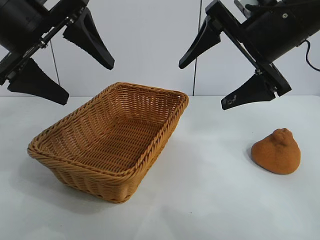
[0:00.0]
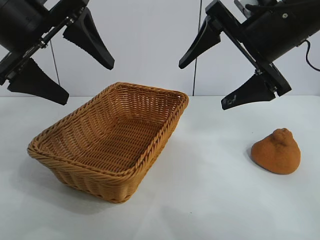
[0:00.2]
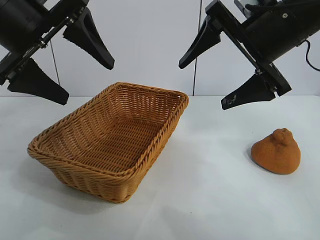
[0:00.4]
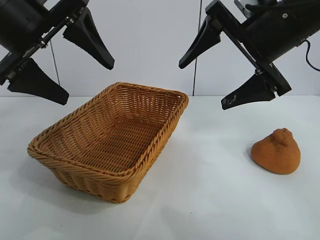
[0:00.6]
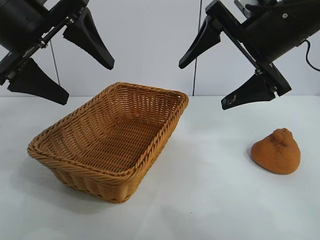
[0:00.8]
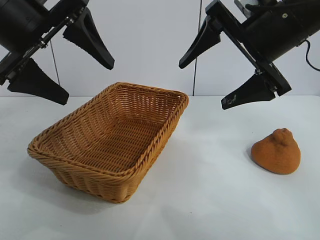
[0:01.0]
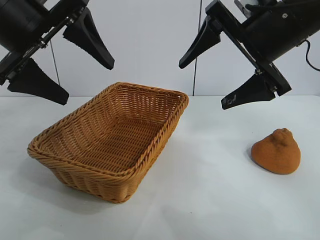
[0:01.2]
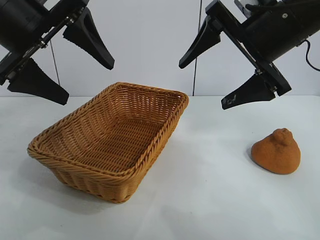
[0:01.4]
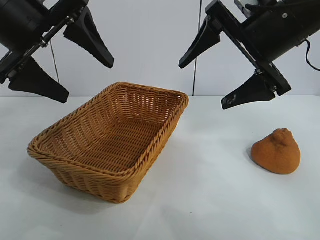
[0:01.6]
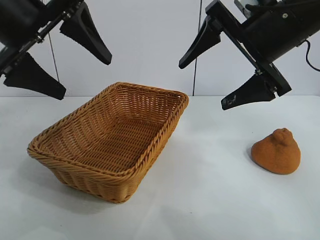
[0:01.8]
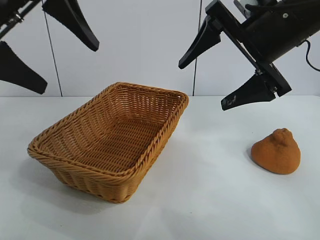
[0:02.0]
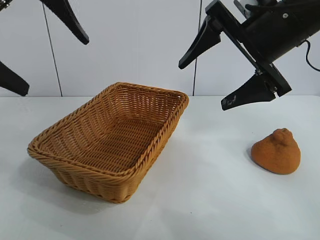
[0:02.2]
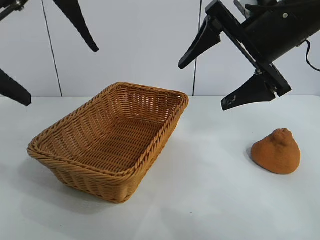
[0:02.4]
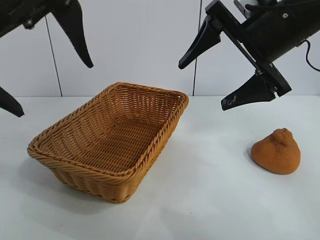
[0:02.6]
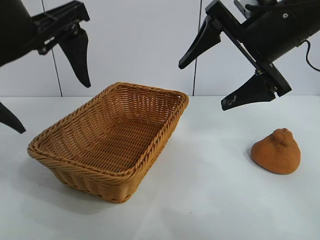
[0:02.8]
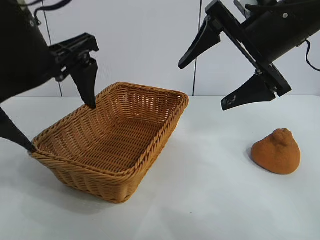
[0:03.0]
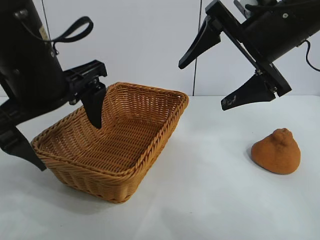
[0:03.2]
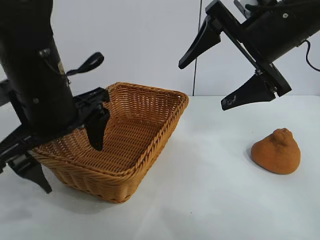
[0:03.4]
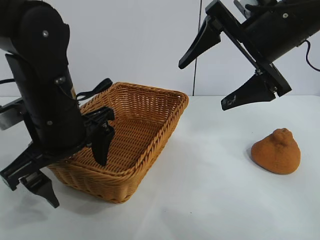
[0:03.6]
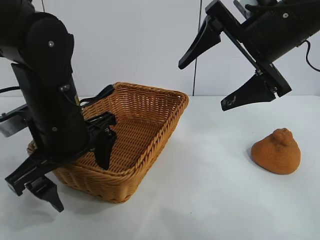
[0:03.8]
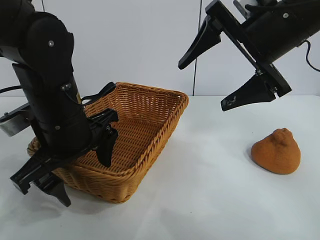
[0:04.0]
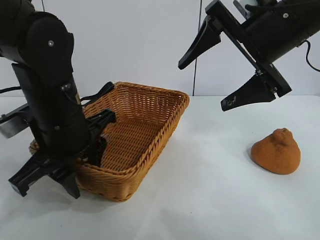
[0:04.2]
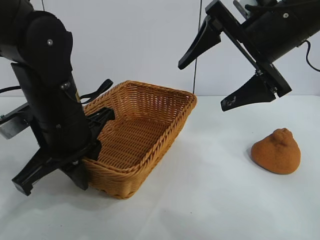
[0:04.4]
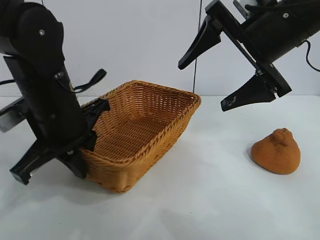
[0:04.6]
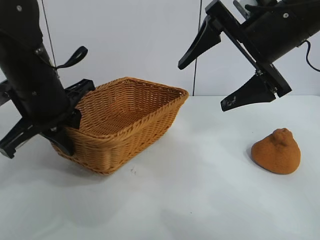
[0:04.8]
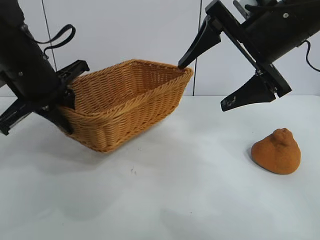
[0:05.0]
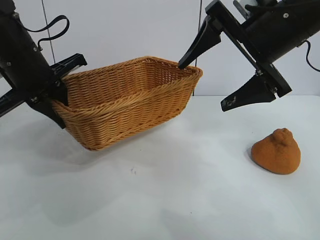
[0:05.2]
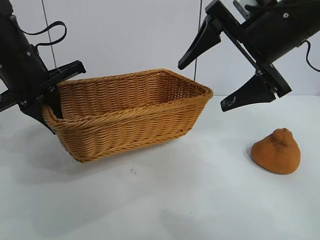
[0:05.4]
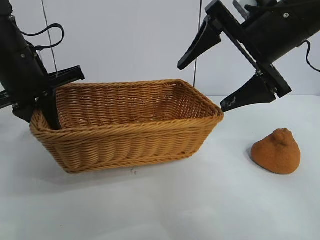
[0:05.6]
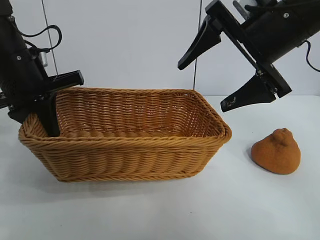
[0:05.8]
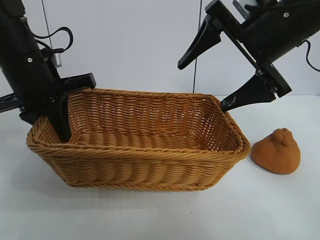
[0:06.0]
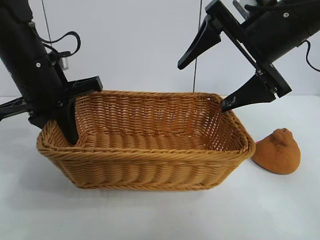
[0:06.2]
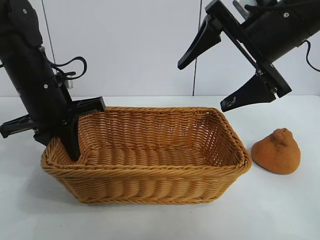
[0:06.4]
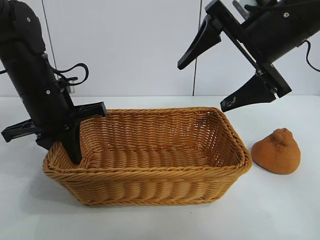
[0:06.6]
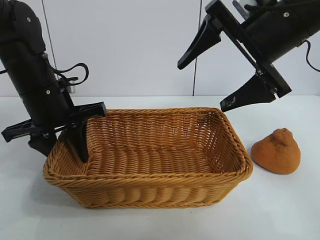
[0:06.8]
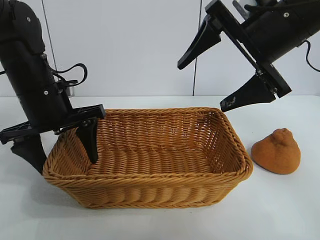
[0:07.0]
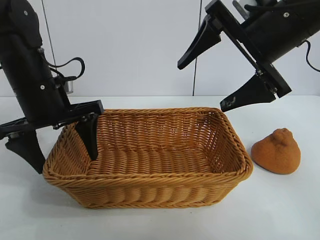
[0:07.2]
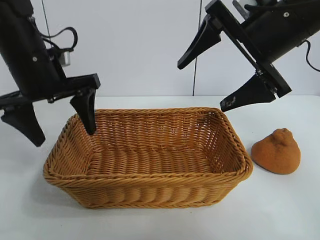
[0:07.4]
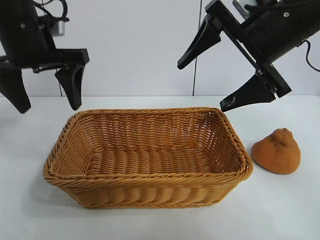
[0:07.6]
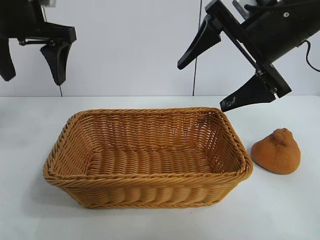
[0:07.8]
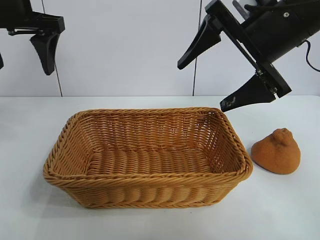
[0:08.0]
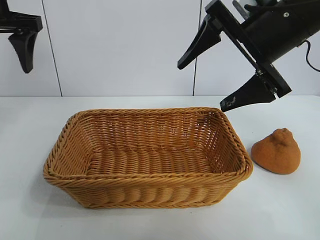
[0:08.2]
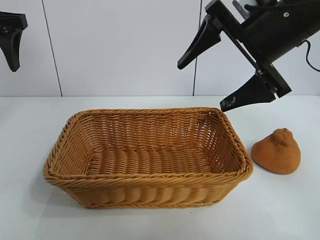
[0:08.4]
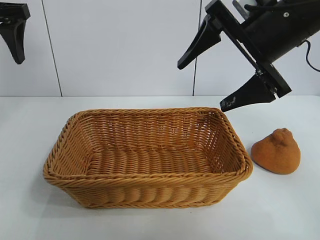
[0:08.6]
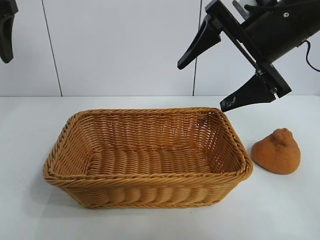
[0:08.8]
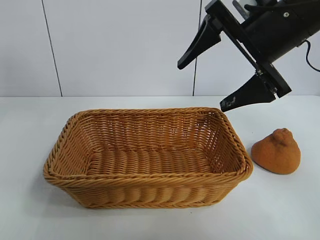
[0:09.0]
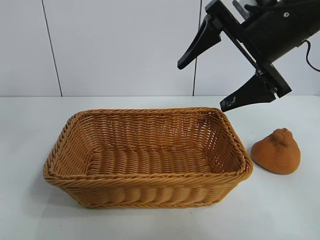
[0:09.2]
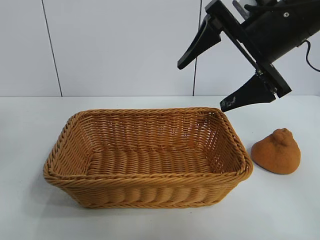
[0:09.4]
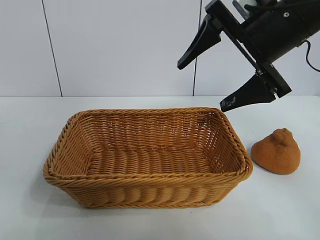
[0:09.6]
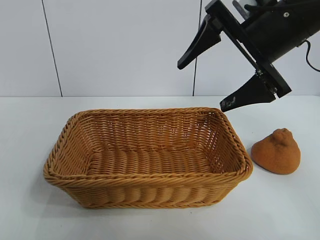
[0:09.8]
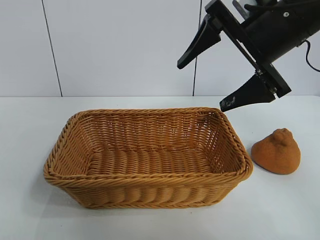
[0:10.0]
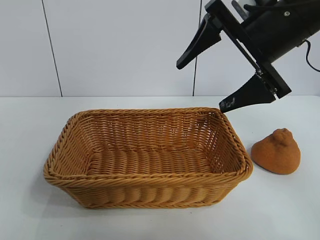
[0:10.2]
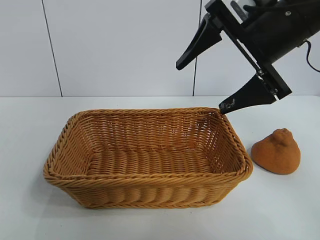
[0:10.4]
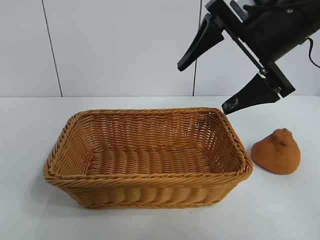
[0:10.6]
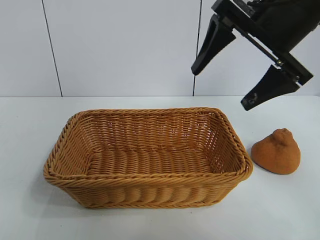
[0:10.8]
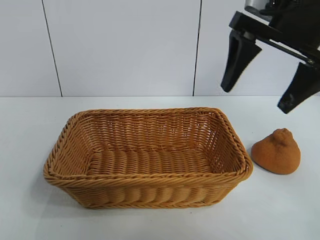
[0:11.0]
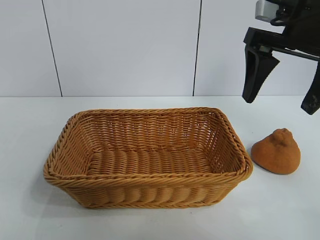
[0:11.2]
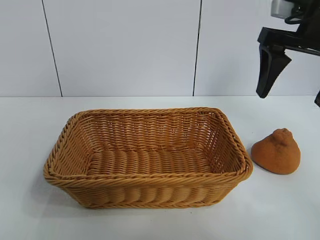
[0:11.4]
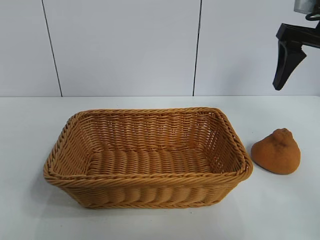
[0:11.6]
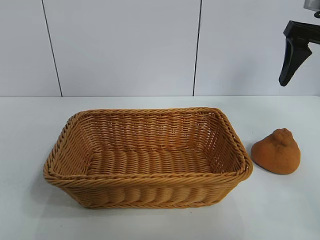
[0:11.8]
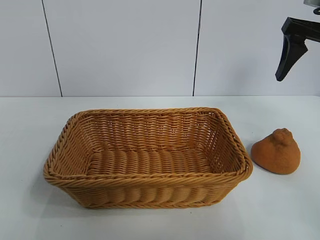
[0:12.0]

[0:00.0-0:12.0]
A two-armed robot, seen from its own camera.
Task of the whole recording: pick up the orange and put it into the basket.
Step, 0:01.8 to 0:04.2: Grasp the basket with left gripper.
Step, 0:04.6 to 0:07.0: Place the basket in the center of view with left gripper.

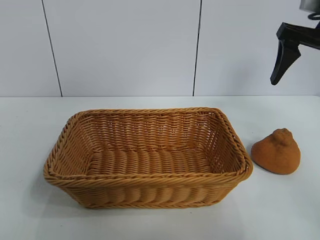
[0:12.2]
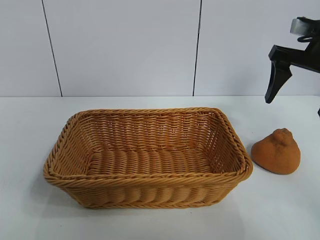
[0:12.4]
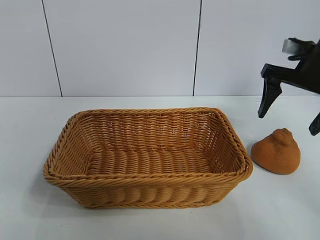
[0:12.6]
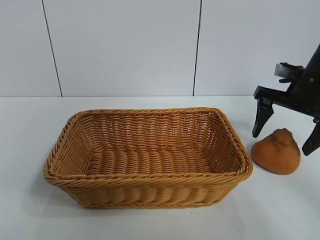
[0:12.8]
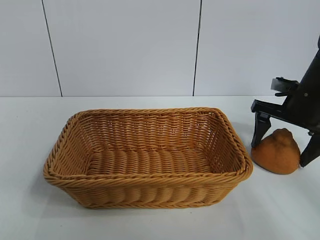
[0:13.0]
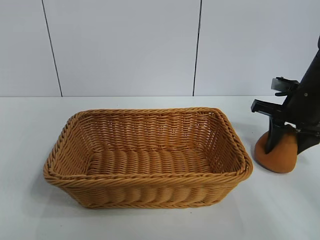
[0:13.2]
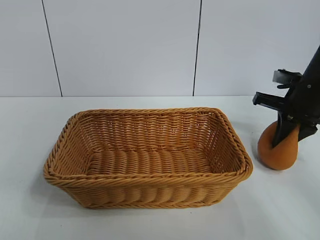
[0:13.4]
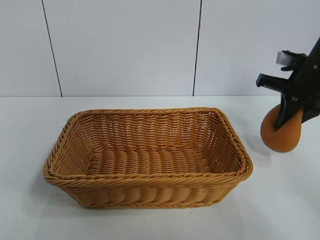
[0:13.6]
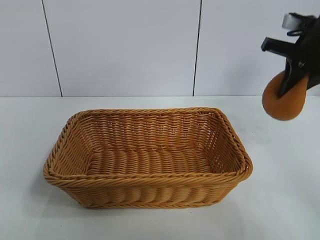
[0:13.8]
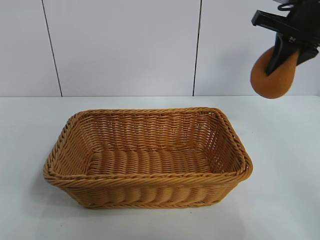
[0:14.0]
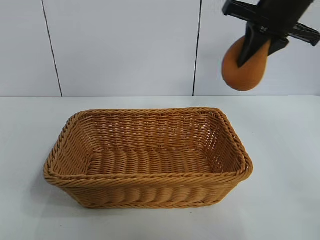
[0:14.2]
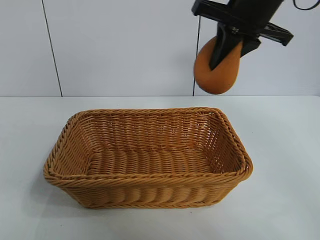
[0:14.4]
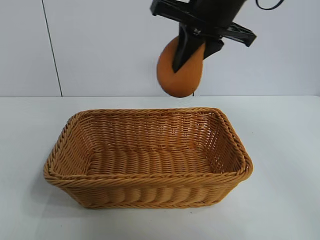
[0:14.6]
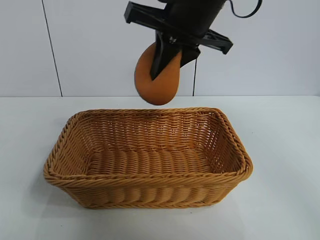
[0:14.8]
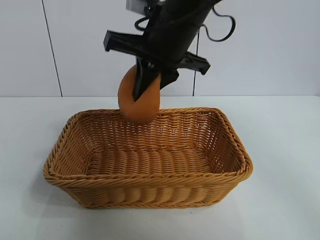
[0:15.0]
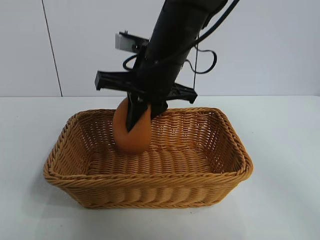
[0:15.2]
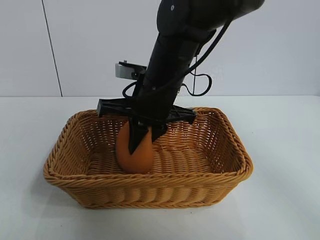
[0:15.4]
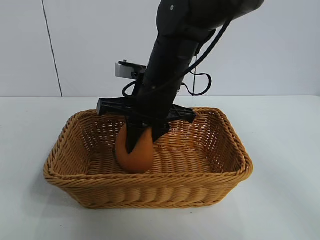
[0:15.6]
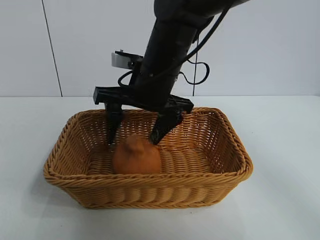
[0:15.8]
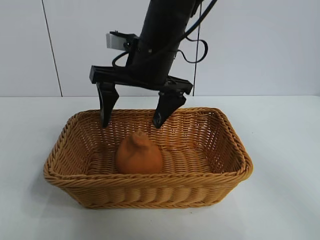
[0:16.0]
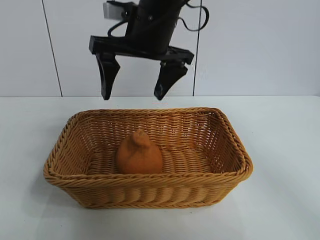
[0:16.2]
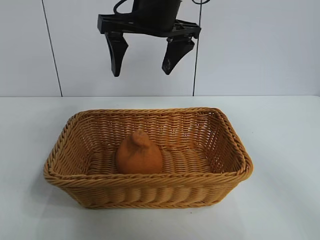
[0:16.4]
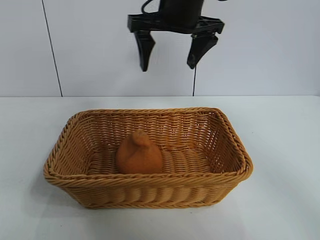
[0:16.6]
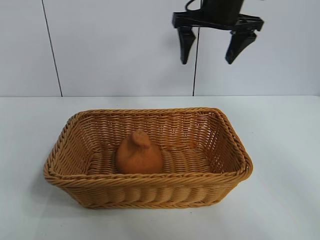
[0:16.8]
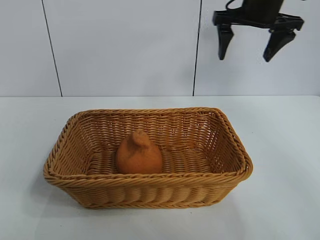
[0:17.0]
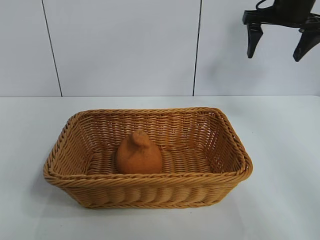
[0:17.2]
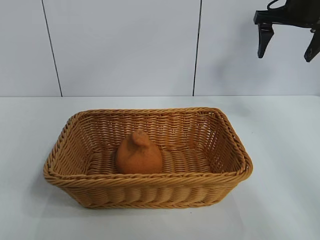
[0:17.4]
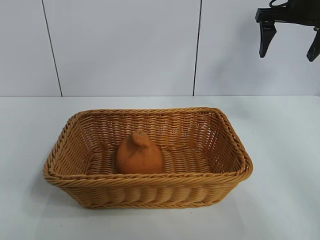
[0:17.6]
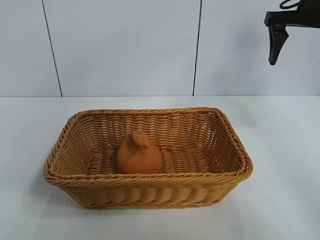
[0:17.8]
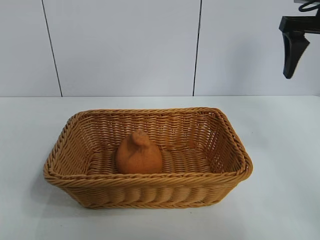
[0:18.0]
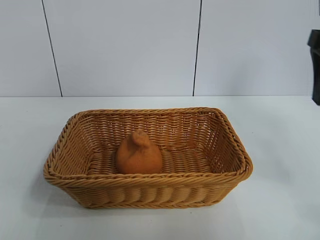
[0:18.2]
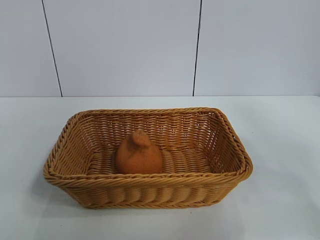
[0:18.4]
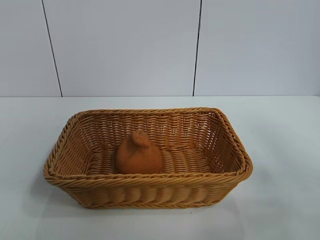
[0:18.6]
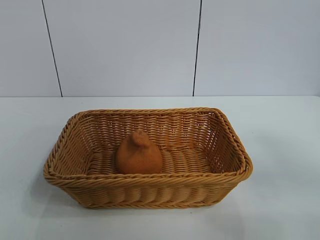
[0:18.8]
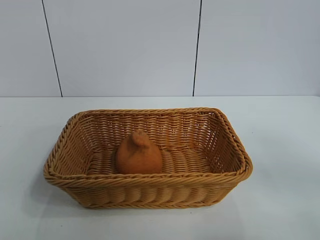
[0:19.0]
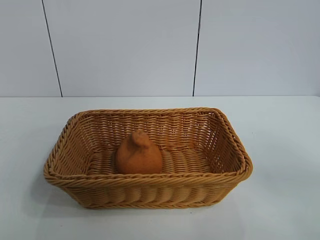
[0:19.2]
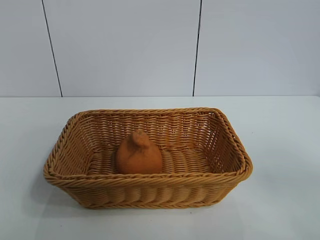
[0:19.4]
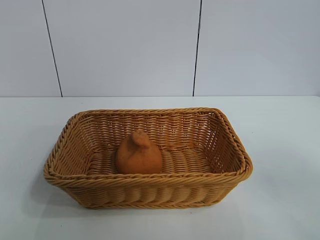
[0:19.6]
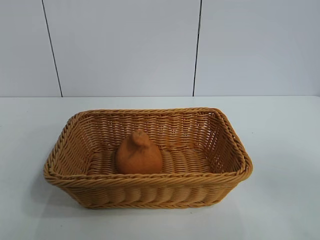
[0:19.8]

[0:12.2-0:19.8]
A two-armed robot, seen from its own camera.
Task of the whole recording: pick up the orange and put it into the basket.
Step, 0:13.6 to 0:15.8: Place the orange in the basket with right gripper.
